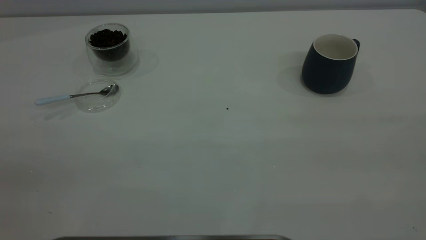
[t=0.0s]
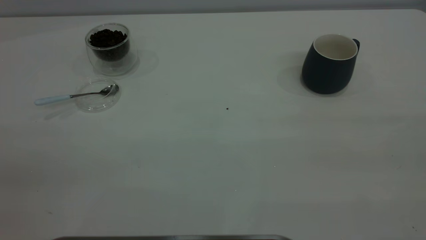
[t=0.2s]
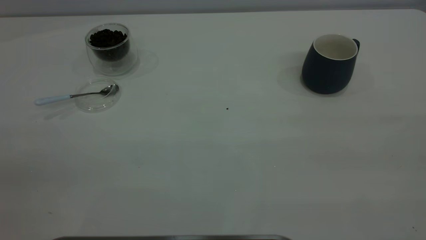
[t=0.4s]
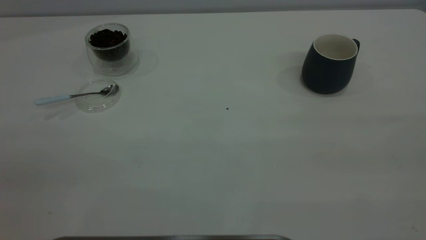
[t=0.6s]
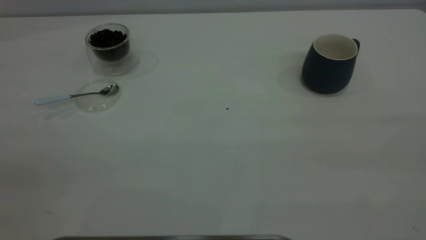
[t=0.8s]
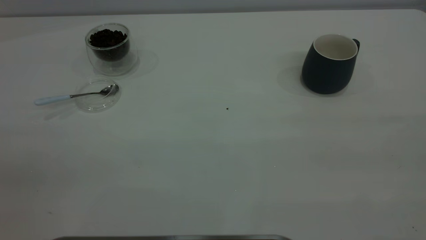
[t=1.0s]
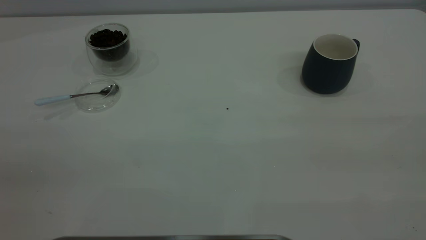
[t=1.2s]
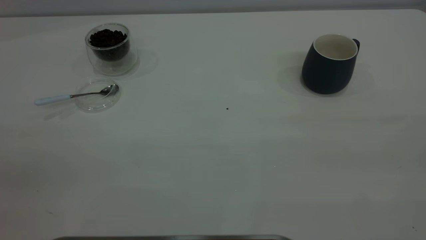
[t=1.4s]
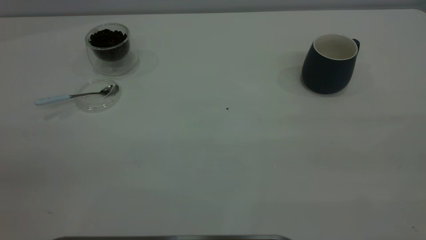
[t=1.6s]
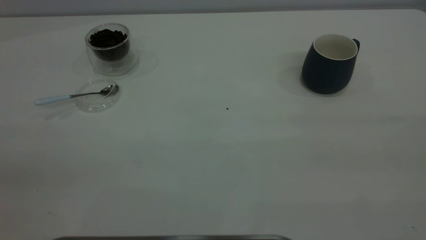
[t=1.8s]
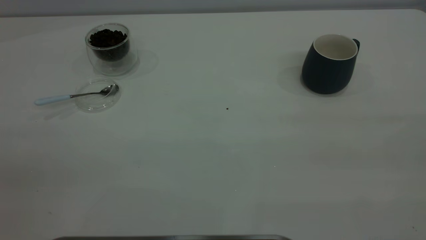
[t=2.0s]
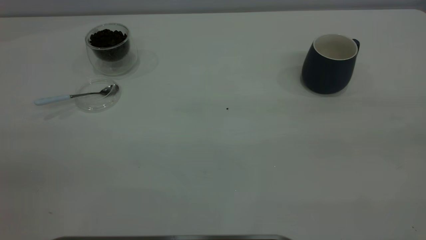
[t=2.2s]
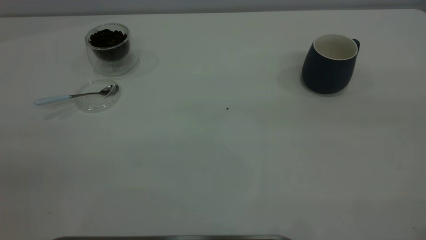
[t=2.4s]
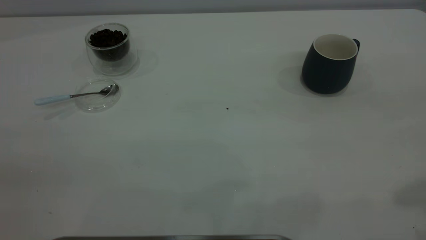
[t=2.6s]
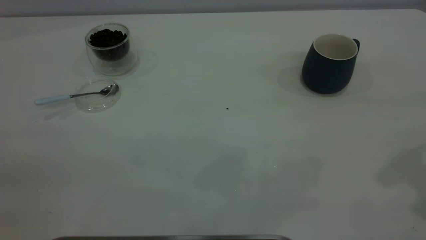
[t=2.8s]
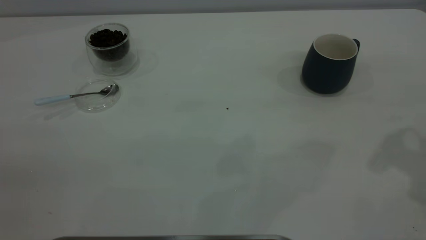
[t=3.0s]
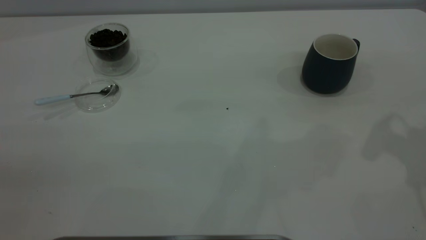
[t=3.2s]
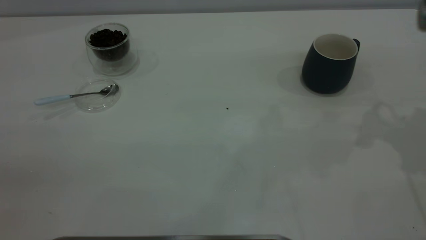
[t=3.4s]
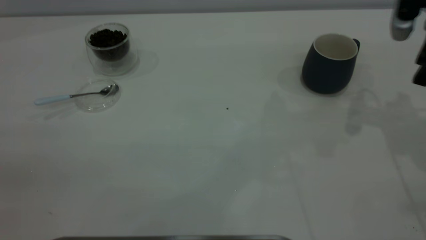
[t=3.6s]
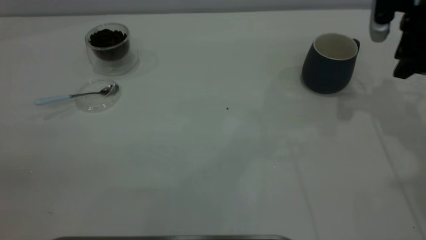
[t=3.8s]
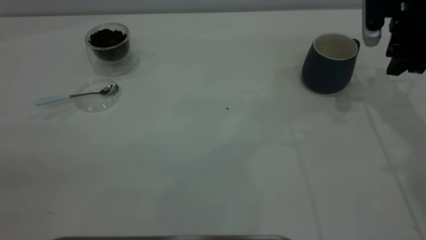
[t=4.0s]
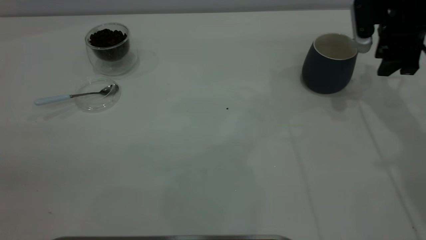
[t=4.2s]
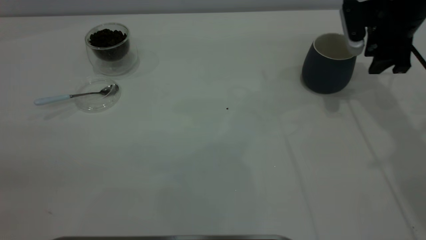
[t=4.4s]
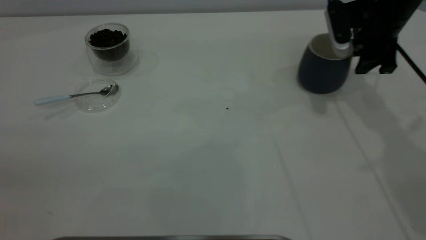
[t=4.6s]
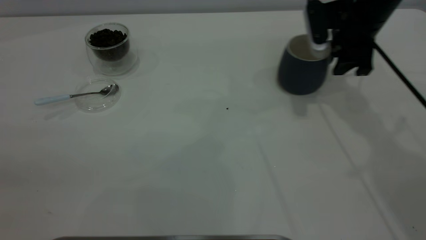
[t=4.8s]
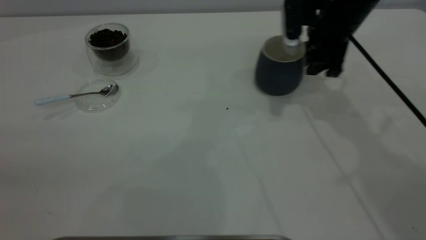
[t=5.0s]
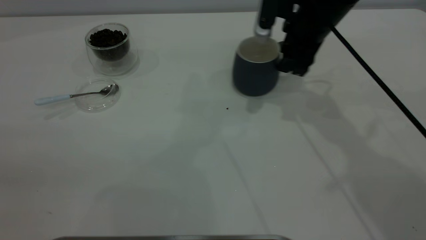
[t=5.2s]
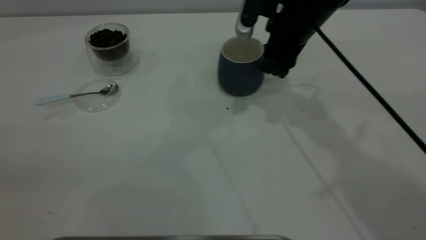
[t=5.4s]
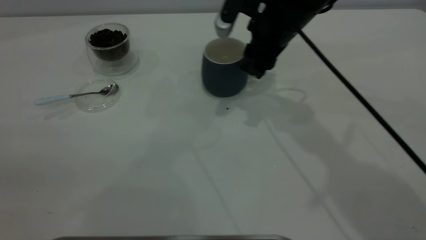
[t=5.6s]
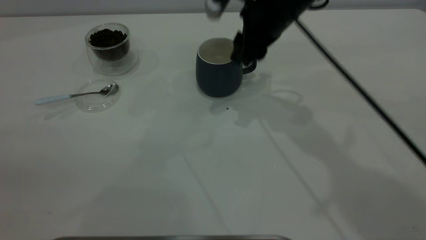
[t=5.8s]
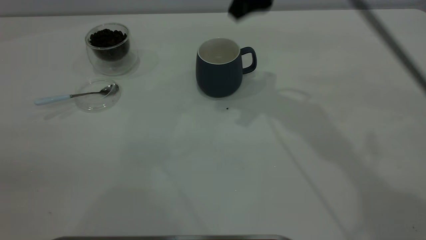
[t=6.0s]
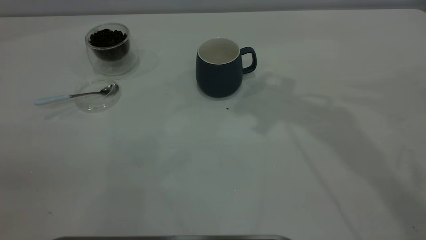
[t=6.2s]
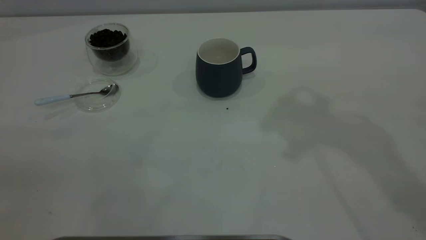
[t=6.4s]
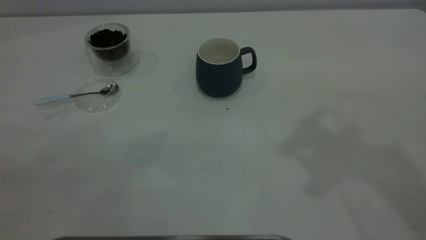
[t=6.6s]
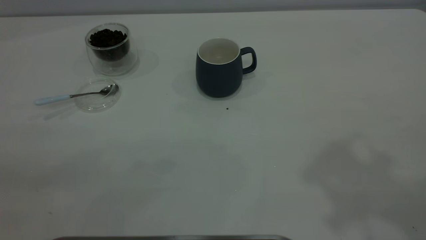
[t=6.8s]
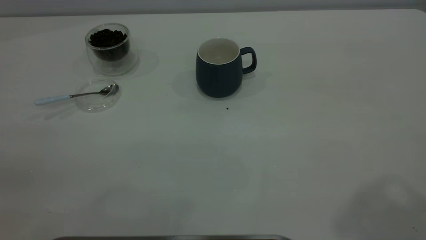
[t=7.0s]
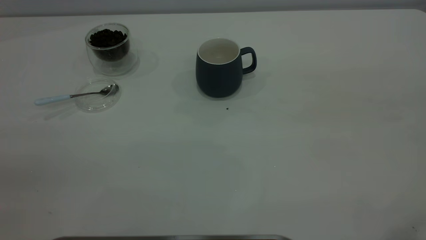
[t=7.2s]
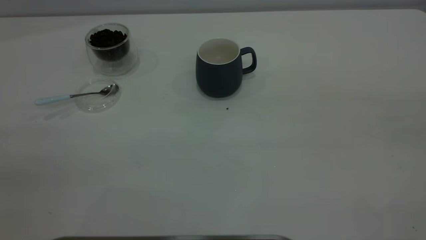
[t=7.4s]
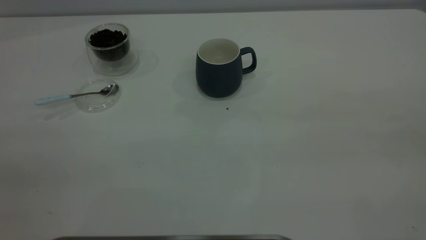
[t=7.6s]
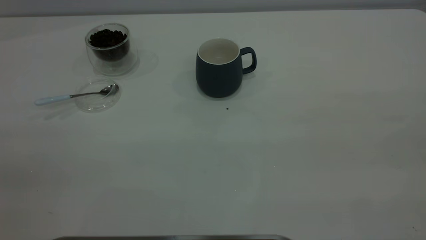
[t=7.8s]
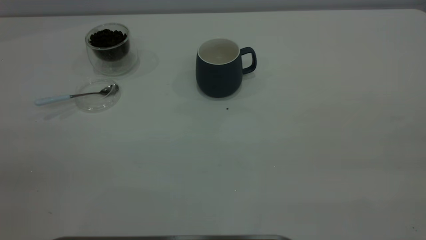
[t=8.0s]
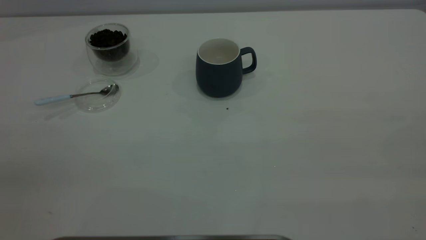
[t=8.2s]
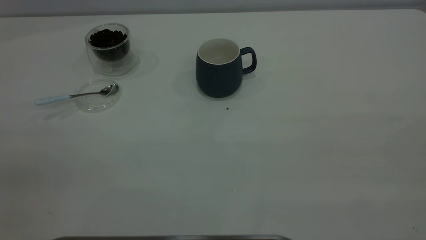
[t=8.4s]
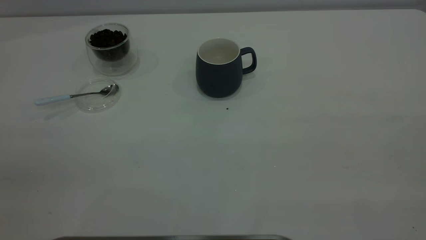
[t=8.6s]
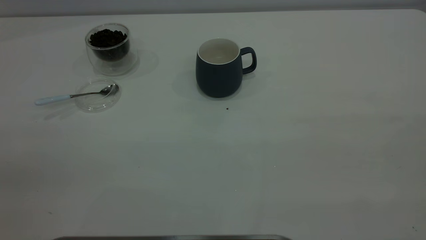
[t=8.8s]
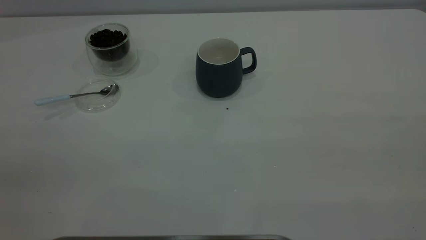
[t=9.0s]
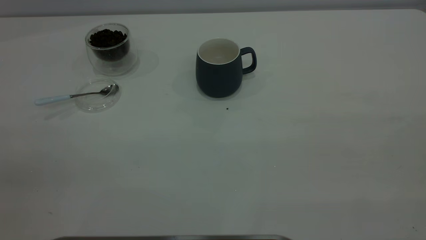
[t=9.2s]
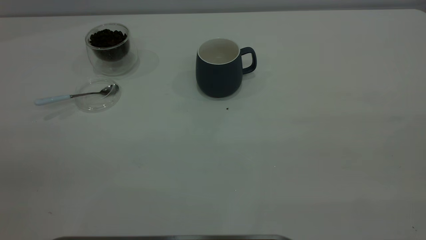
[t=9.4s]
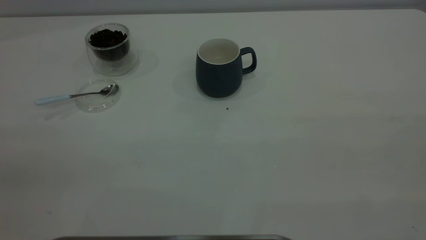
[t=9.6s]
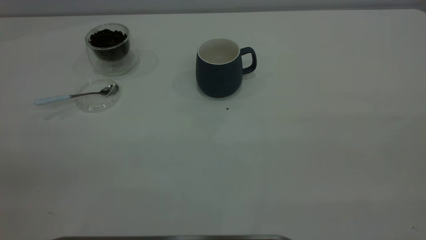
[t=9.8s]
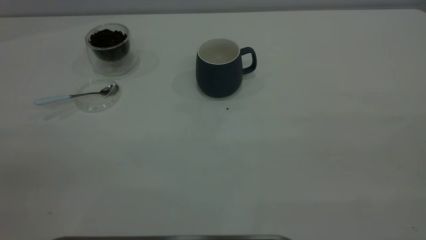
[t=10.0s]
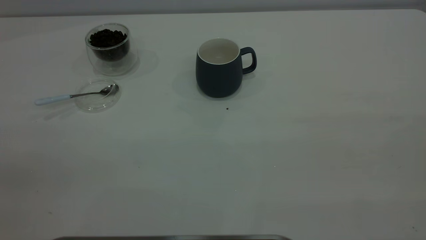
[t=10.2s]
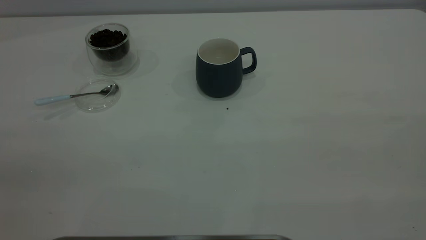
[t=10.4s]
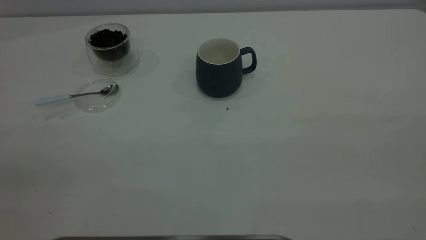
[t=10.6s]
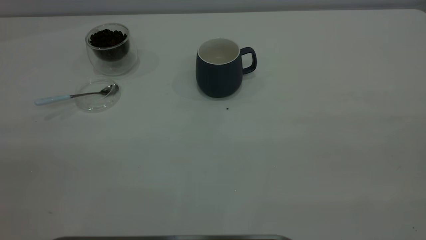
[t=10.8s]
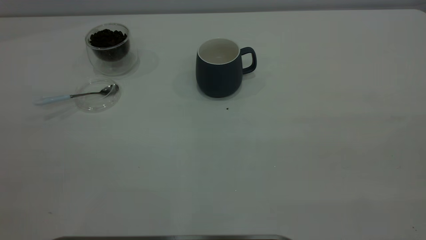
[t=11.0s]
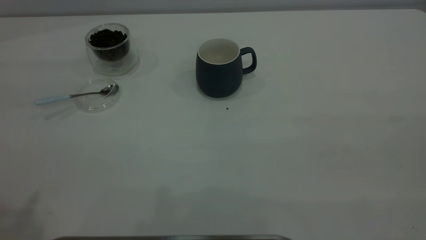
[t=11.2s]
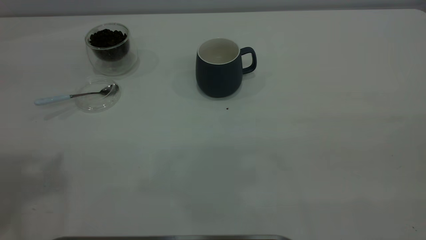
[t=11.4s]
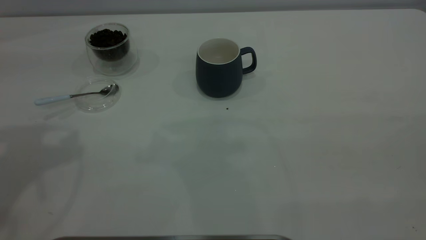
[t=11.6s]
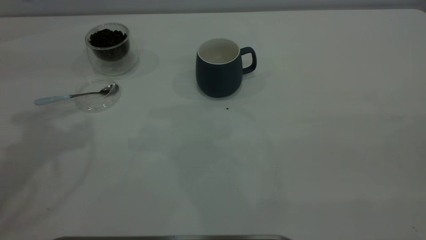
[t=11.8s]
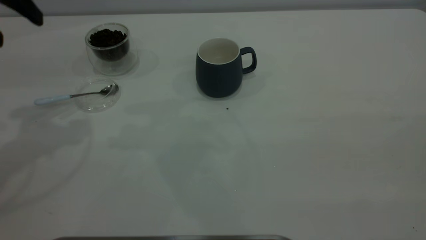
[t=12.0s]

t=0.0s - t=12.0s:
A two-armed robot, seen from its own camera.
Task of the whole recording: the right gripper place the grey cup in the center of the table, the left gripper take the blue spoon from the cup lid and scoop out the coffee beans from the coffee cup and put them into the grey cup, the left gripper put the spoon back into the cup lid.
Step, t=0.0s - t=5.8s: Move the cup to the center of view.
t=0.0s - t=1.6s: Both grippers stay put.
t=3.0s - t=4.4s: The right gripper moves forward and downward, approximately 25 cm.
t=4.4s - t=6.0s: The right gripper moves to the left and upward, some 20 cm.
t=6.0s - t=7.6s: The right gripper heads backward and to the right, covering approximately 40 cm.
t=9.0s - t=10.4s: The two grippers keep their place.
t=10.4s - t=12.0s: The left gripper moves forward, some 30 cm.

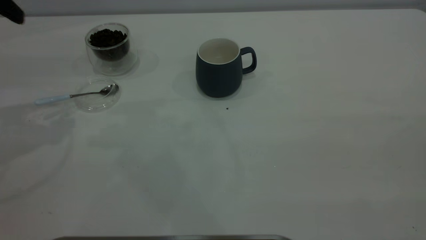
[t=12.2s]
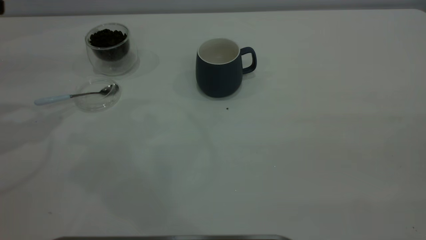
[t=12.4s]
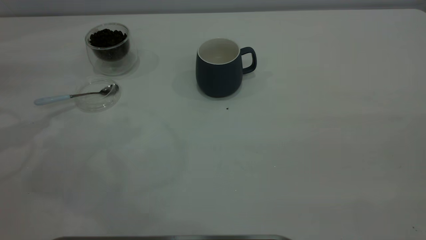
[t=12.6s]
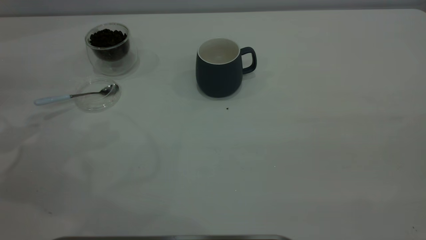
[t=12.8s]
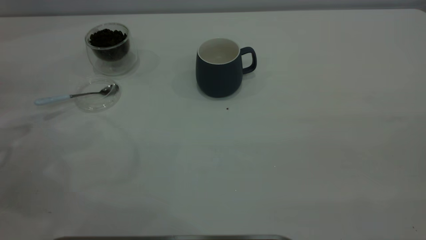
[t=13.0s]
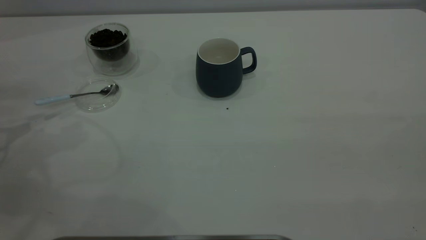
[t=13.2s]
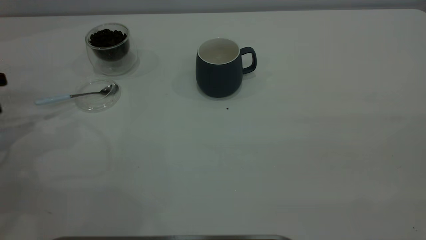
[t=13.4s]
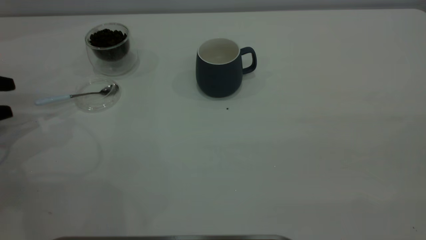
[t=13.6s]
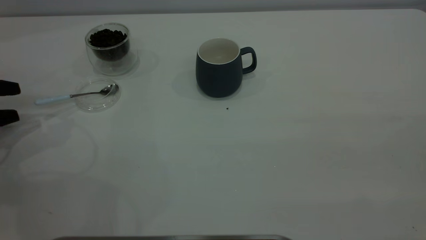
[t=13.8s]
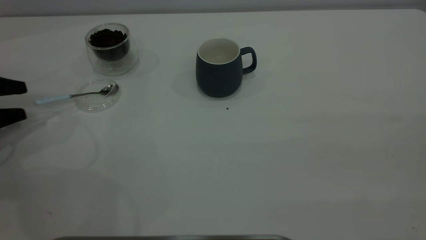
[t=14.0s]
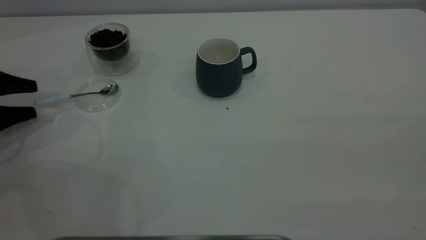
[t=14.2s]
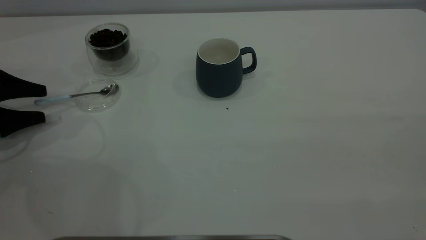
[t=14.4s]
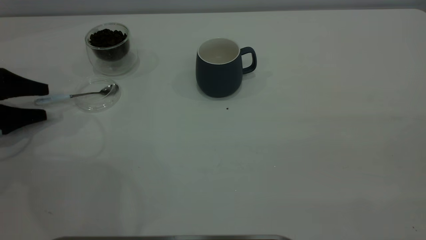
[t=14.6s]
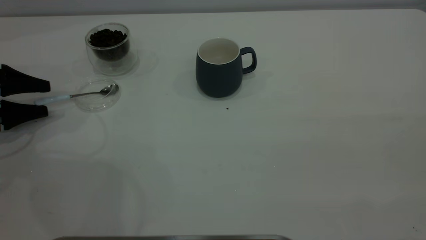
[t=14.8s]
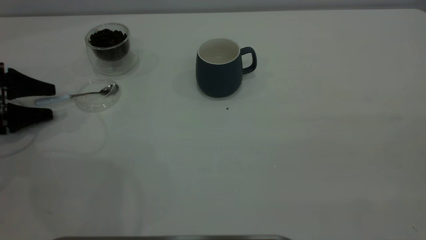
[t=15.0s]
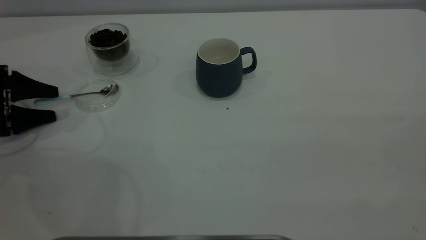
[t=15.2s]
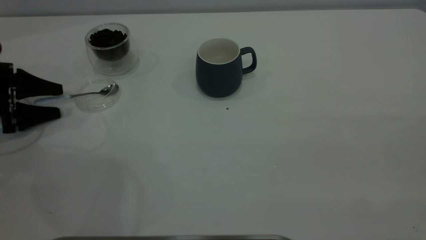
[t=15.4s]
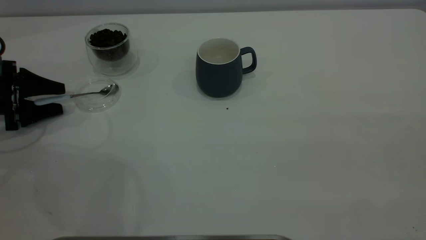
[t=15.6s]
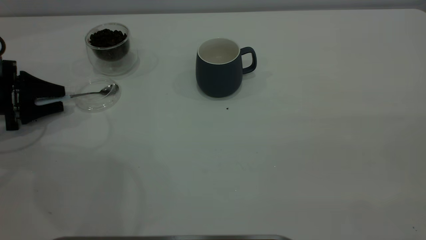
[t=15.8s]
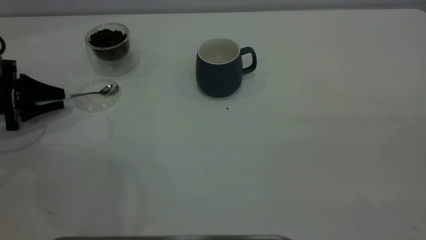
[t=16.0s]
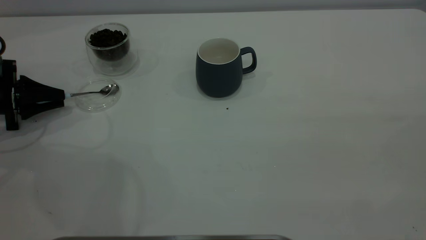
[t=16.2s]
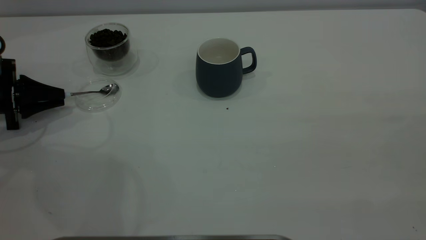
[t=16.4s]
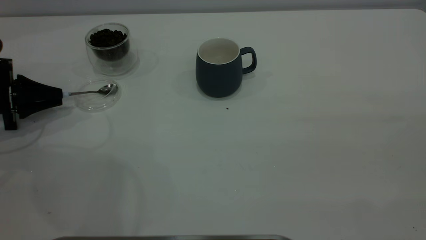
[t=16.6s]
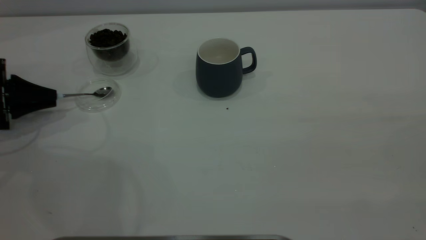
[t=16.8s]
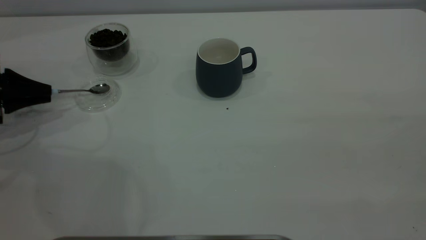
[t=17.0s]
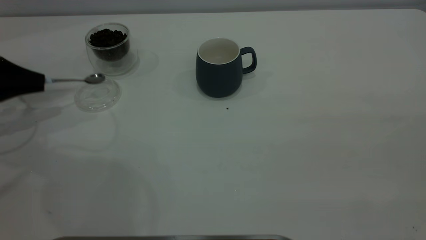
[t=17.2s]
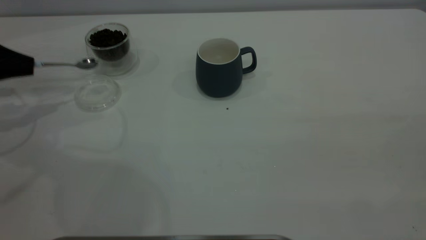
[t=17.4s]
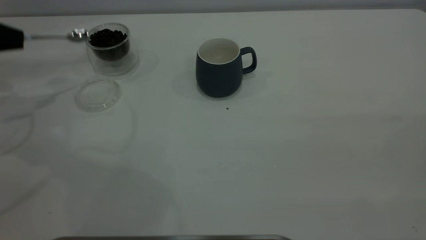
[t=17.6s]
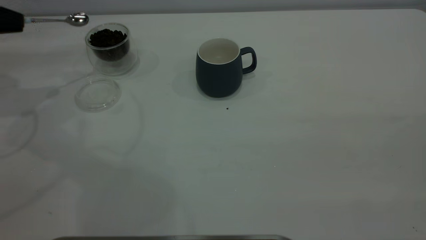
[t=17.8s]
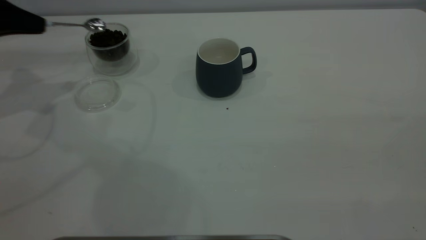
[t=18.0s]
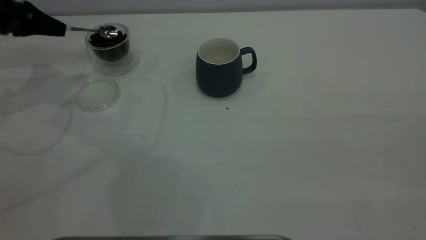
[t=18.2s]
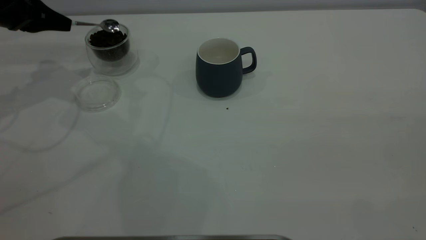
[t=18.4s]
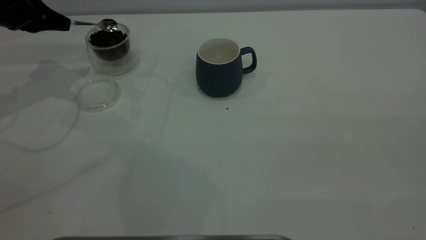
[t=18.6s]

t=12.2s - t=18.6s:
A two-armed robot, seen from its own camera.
Task of the whole recording: the right gripper place the grey cup in the center of the table, the left gripper take the blue spoon from the cup lid and scoop out the coffee beans from the coffee cup and put them into the grey cup, the left gripper put the spoon back into the cup lid.
Step, t=12.2s - t=17.4s: Pick up the spoon.
t=12.2s - t=13.8s: The left gripper travels downward and to the left by approximately 25 cm.
t=13.8s - t=15.4s: The left gripper travels forward by roughly 5 cm.
t=15.4s - t=17.0s: The left gripper closes.
t=17.0s - t=18.6s: The left gripper moves upward, forward and to the right, approximately 15 cm.
